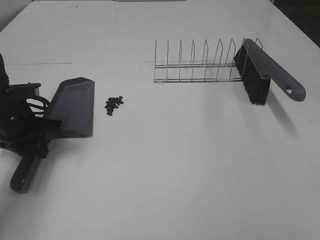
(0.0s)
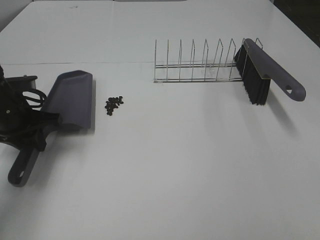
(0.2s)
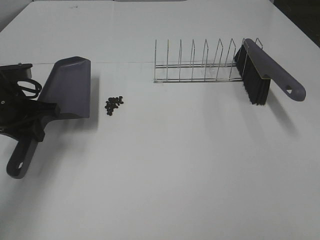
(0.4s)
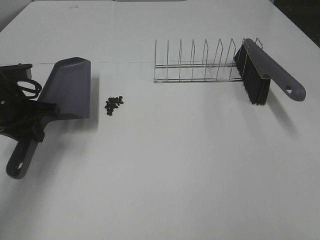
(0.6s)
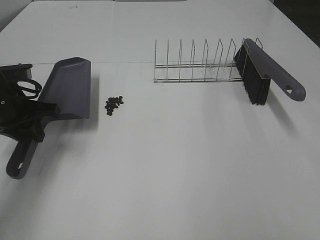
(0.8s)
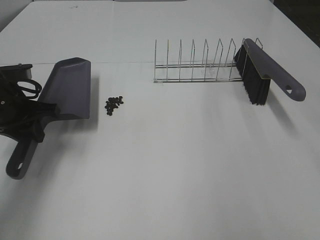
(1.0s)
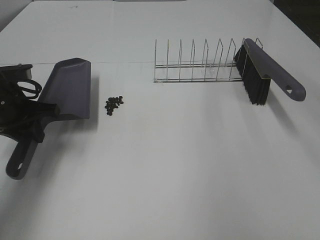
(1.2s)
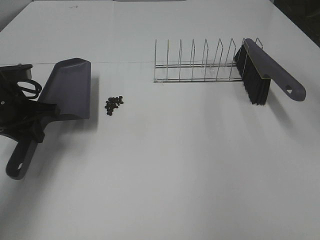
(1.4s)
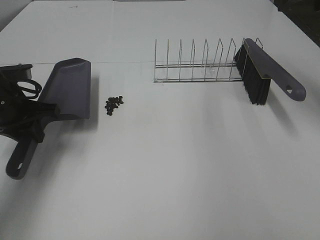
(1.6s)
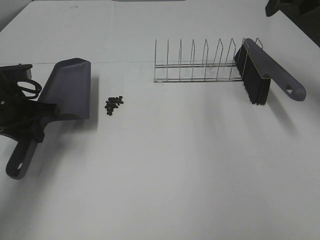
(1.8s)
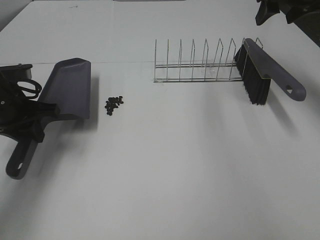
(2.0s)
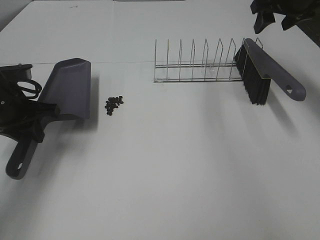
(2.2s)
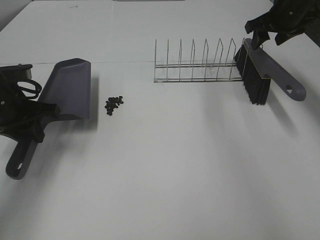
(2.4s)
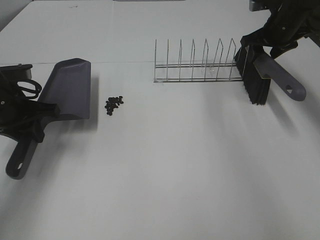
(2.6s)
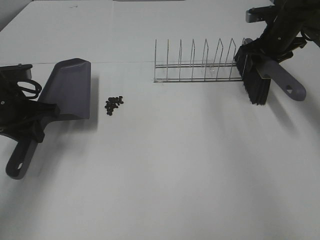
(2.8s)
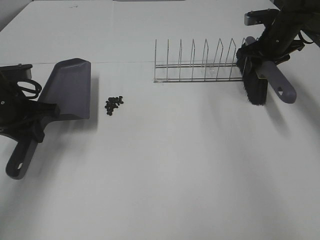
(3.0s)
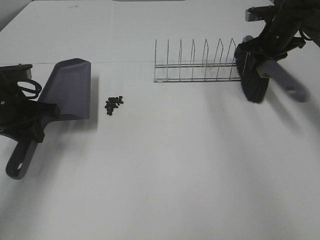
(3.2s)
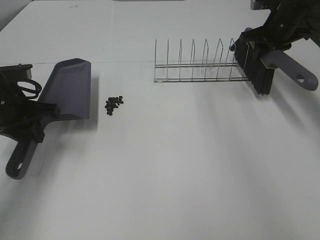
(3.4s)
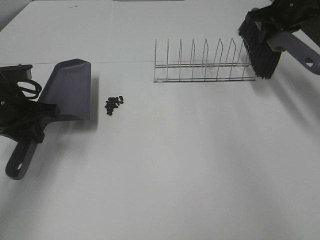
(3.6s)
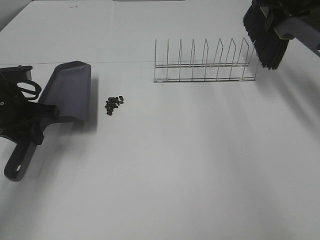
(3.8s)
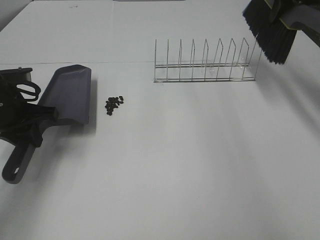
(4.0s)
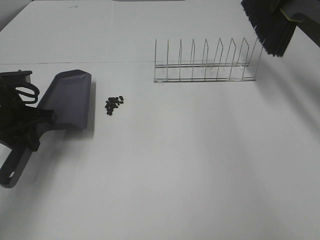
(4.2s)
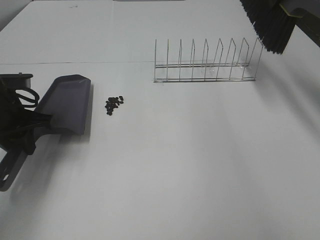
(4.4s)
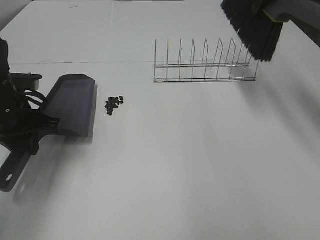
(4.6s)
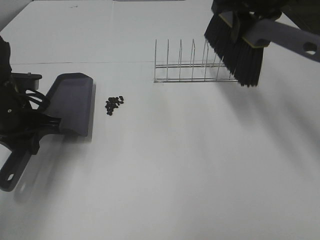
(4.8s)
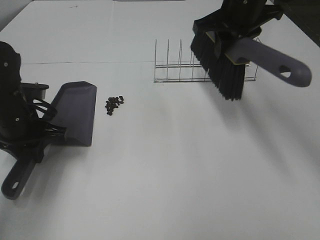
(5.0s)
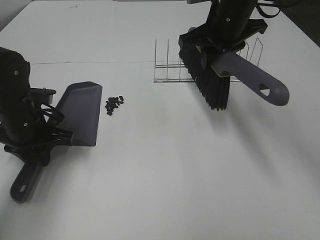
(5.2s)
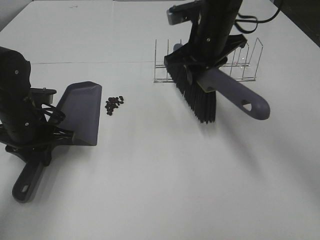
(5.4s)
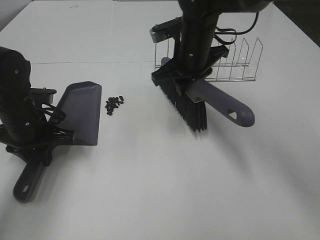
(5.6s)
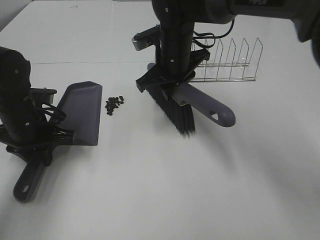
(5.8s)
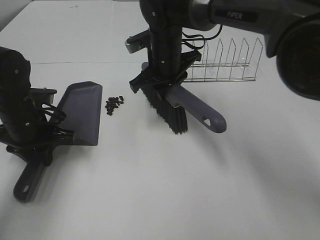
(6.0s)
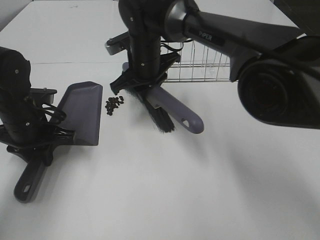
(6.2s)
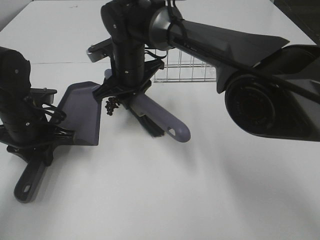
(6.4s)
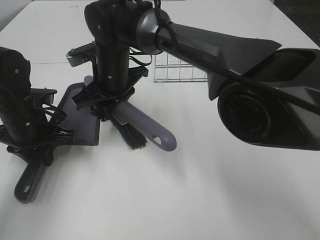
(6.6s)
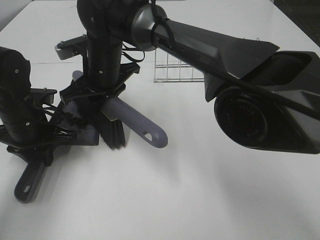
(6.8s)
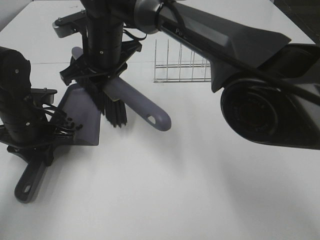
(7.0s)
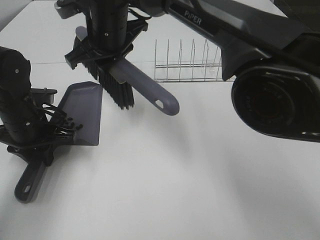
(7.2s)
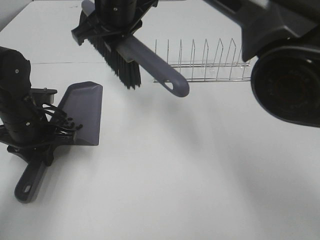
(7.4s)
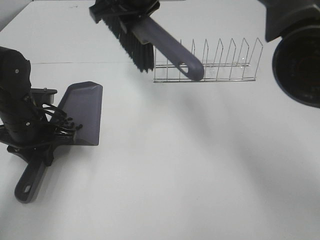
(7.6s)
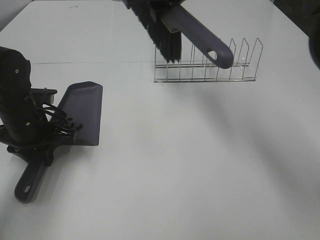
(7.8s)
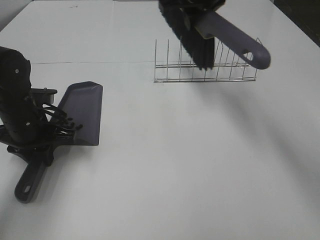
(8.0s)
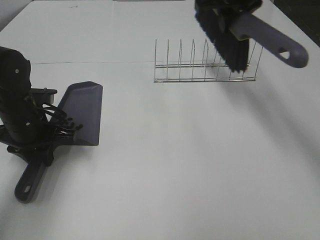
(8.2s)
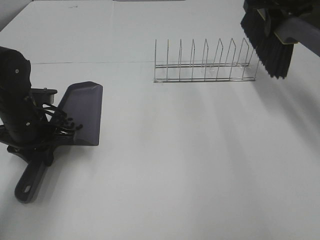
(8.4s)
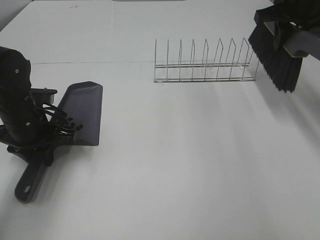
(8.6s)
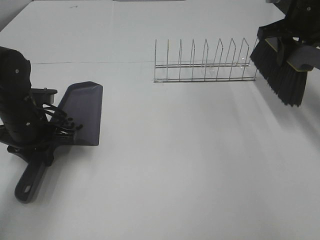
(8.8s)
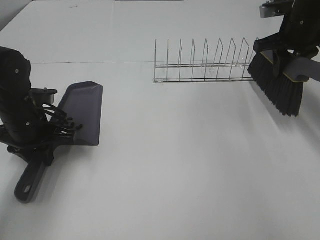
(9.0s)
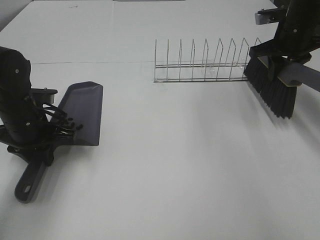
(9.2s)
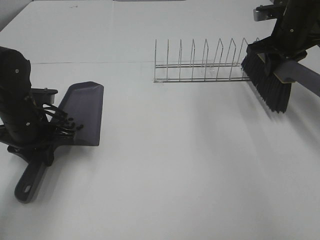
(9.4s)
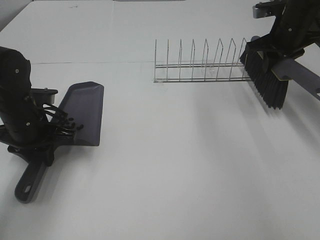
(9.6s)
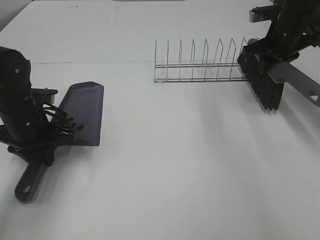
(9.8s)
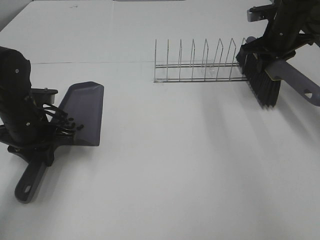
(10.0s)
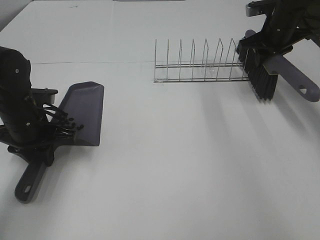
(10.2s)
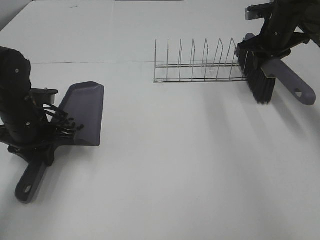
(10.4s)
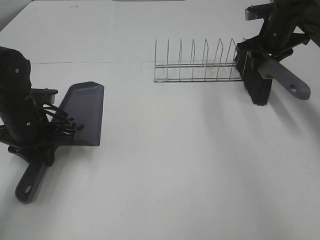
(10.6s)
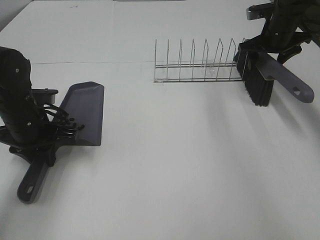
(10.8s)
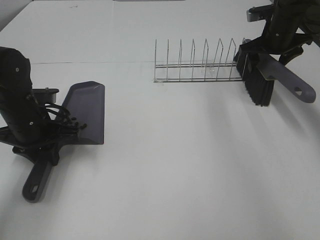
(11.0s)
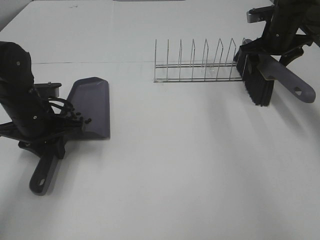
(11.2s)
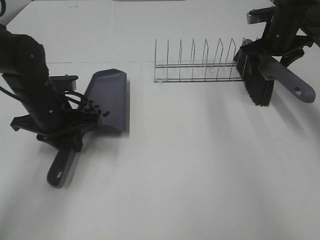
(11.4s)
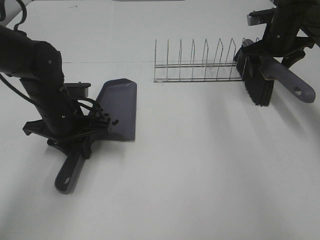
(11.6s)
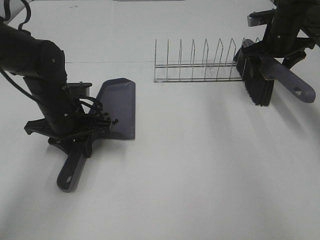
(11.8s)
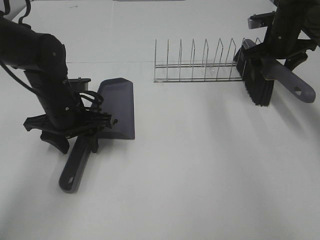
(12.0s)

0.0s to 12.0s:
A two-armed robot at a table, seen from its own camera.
Task of the whole recording: Sweep Coffee Bean.
Step, 0.4s to 3.0s: Right hand:grab the broom.
Step, 3.2s to 7.0s: Right hand:sweep the coffee beans into the dustpan.
Step, 7.2s to 11.6s: Right hand:place the broom on the rack.
Step, 11.8s to 12.0s: Left hand:place the dustpan on the table.
0.0s to 1.6s: The right gripper moves forward, approximately 40 cm.
1.6s to 3.0s: The right gripper goes roughly 25 cm downward and forward, and closes.
3.0s to 4.4s: The right gripper travels upward by some 20 cm, and closes.
4.4s to 6.0s: The right gripper shifts roughly 30 cm to the left and downward.
6.0s to 7.6s: The right gripper travels upward by about 15 cm.
7.6s to 9.0s: The right gripper travels to the right by approximately 30 cm.
9.0s to 10.4s: The right gripper shifts about 5 cm forward.
10.4s to 12.0s: The right gripper opens, while the left gripper goes approximately 5 cm to the right, and opens.

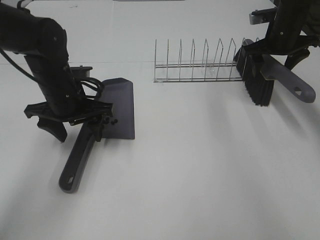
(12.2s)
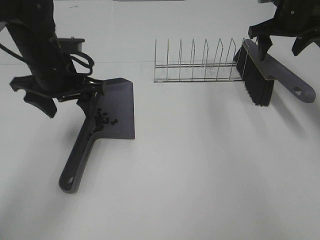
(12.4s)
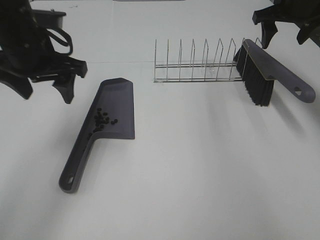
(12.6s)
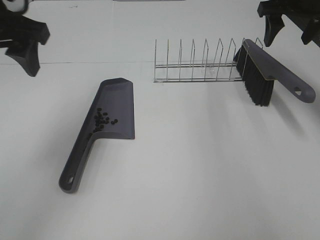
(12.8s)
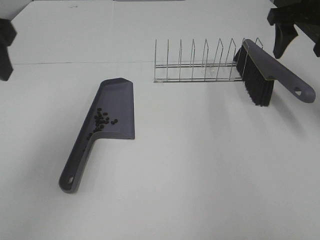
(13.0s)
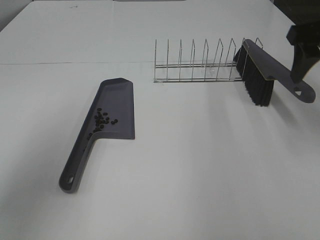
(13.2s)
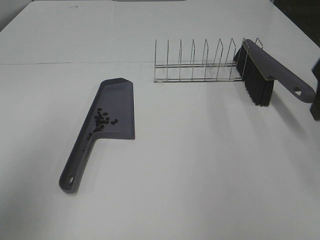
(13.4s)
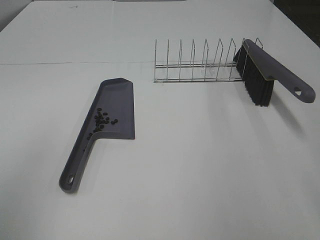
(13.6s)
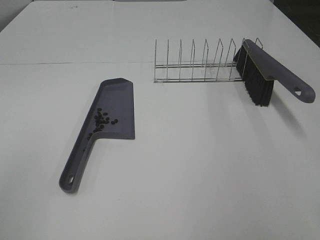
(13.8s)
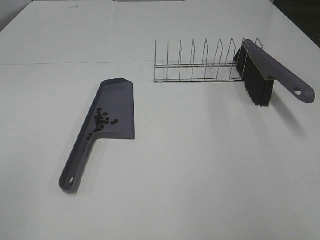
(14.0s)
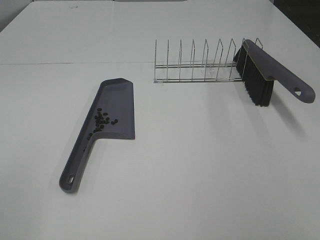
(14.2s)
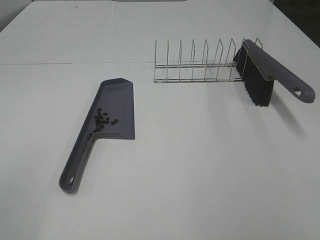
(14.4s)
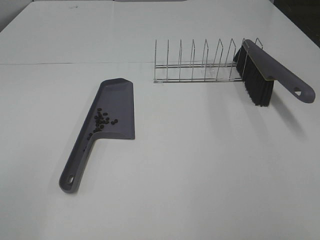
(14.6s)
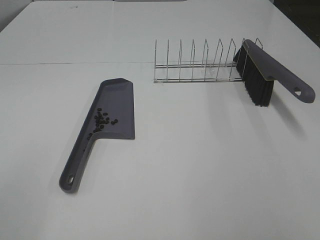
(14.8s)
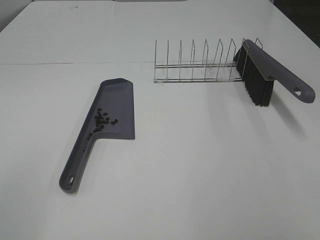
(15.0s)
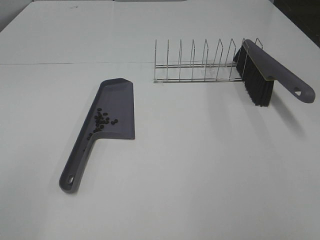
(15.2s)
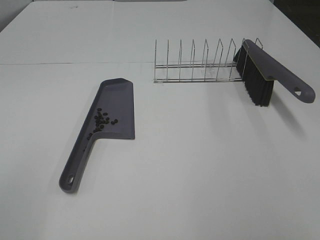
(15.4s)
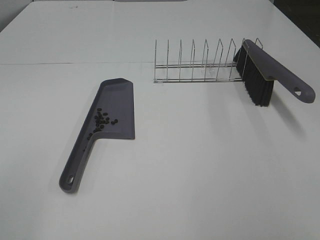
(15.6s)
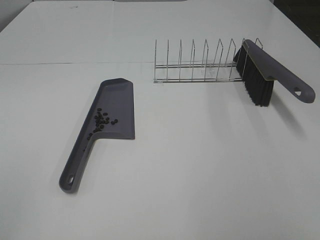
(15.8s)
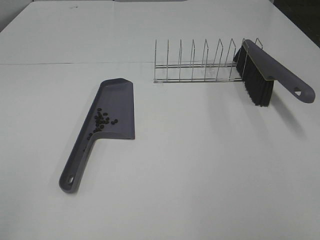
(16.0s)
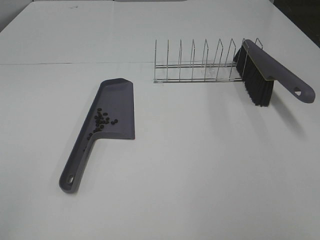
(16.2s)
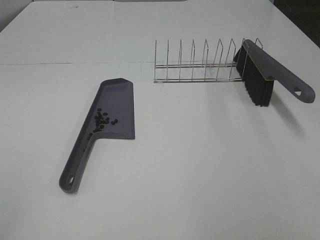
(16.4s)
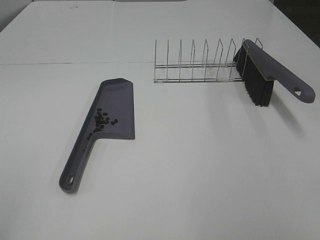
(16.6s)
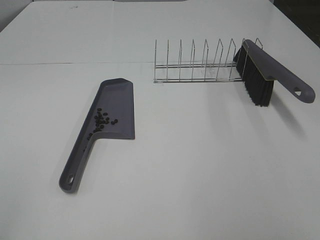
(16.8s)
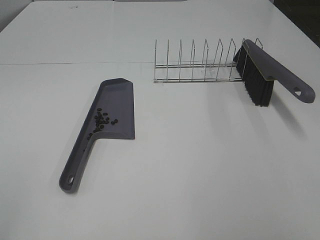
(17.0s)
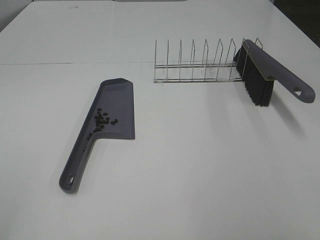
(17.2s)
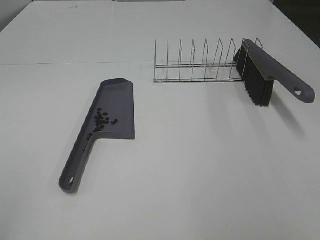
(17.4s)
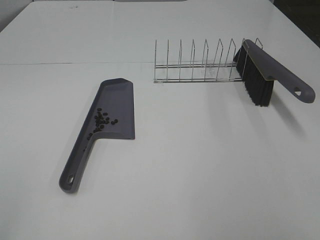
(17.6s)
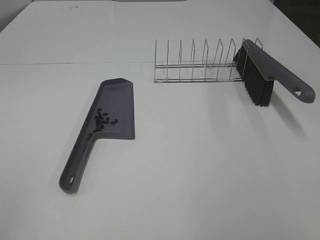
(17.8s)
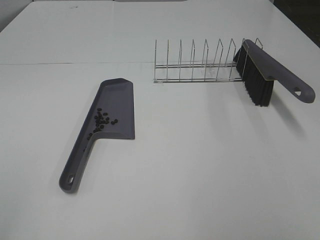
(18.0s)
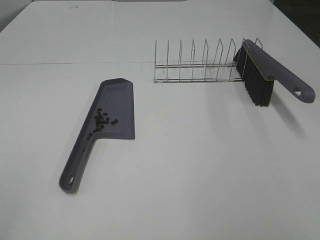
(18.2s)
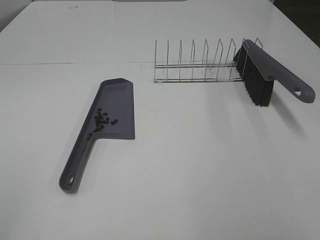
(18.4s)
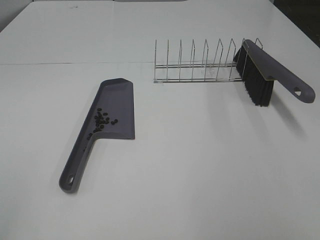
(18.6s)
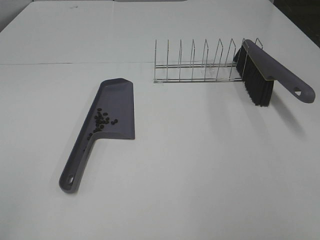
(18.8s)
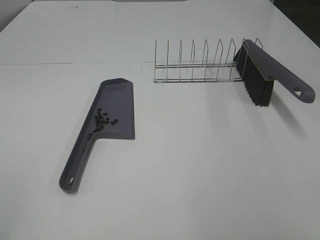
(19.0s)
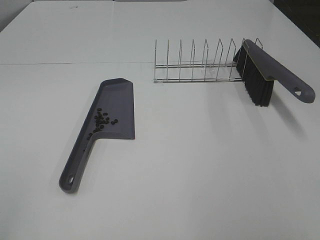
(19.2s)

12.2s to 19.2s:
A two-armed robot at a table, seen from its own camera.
Task of the whole recording: Sweep Coffee Bean.
12.2s to 13.6s: The left gripper moves backward, upward and to the left, some 35 cm. Meanwhile the right gripper goes about 35 cm backward.
16.4s to 19.2s: Both grippers stay put.

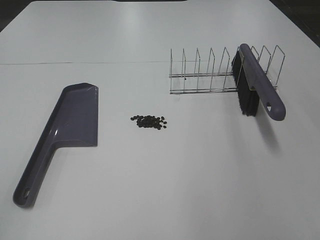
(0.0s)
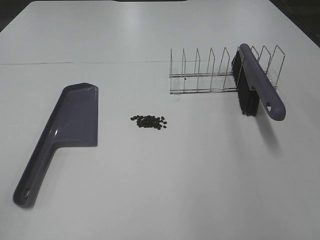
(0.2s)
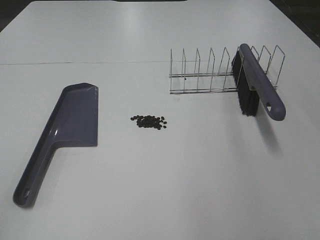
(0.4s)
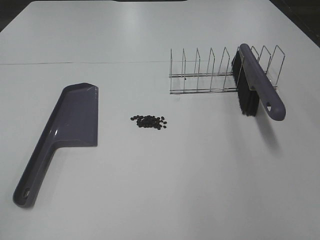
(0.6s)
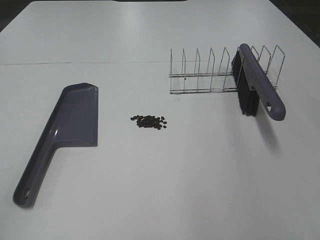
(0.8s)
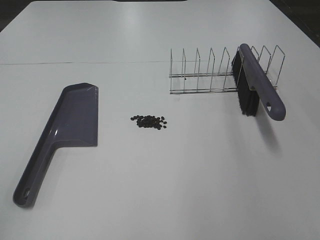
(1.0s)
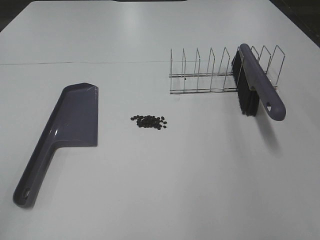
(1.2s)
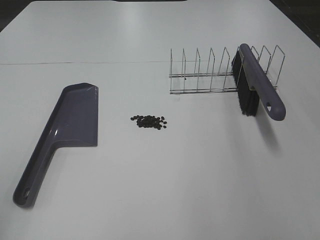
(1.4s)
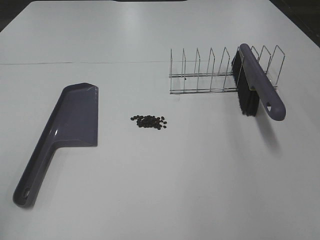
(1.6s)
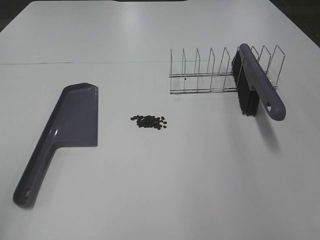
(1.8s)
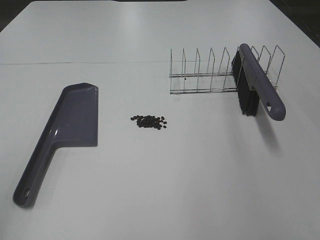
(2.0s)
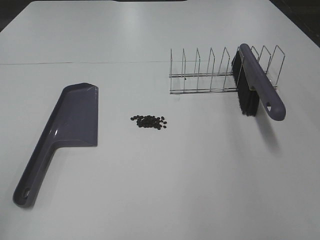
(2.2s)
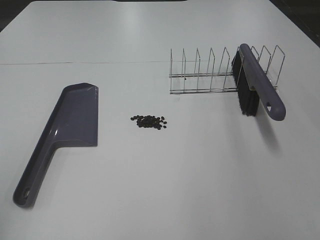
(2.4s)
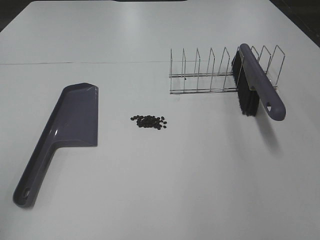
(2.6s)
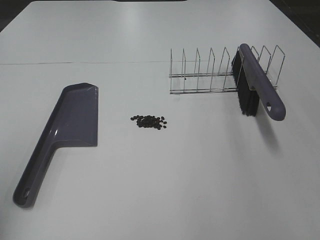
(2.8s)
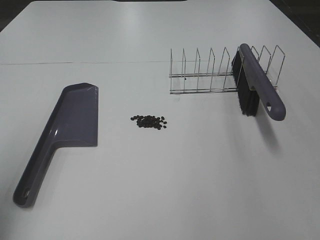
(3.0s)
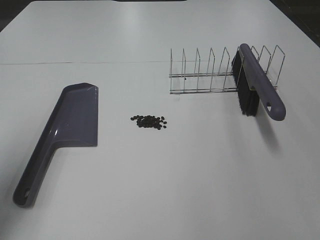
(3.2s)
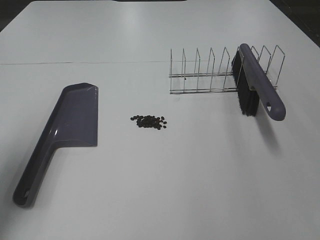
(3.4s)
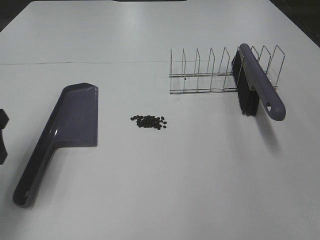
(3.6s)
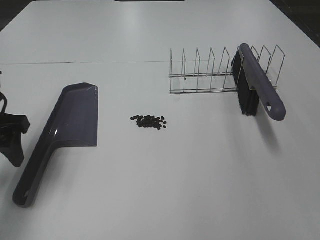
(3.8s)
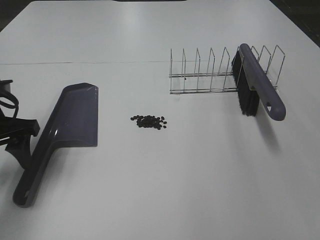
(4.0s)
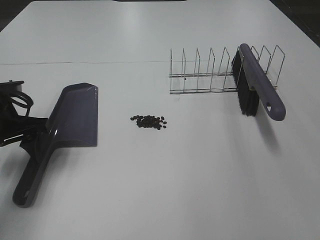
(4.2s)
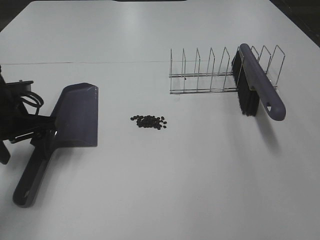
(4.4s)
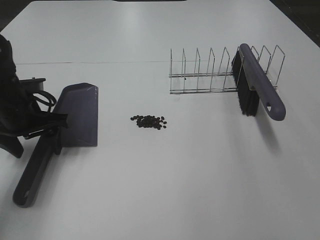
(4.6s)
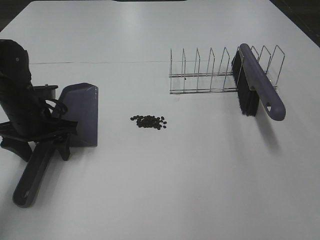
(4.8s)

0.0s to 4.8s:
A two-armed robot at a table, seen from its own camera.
Task of the whole recording: Sweep Coffee Bean.
1.6s to 3.2s: The left gripper is displaced forward by roughly 15 cm.
3.2s to 4.8s: The left gripper is displaced downward, forward and to the right by some 25 cm.
